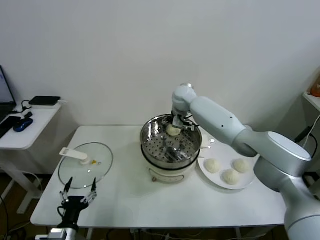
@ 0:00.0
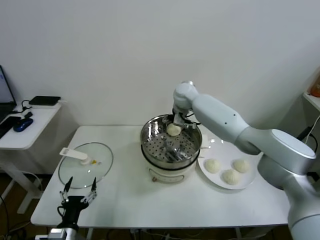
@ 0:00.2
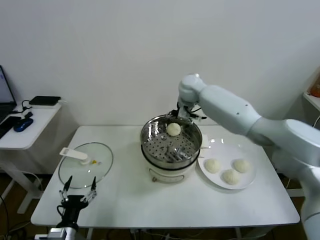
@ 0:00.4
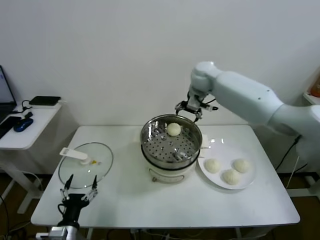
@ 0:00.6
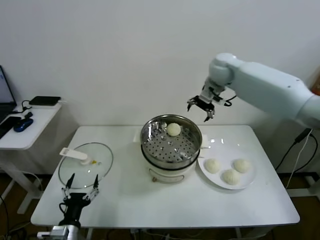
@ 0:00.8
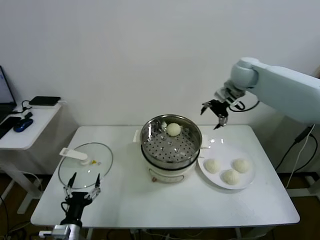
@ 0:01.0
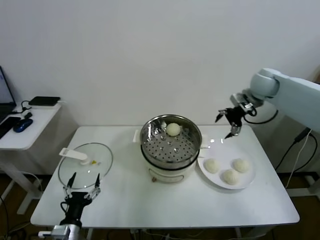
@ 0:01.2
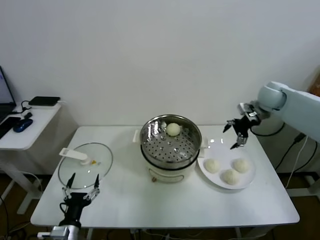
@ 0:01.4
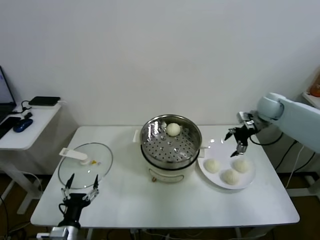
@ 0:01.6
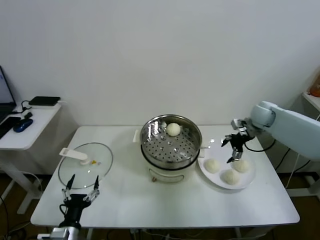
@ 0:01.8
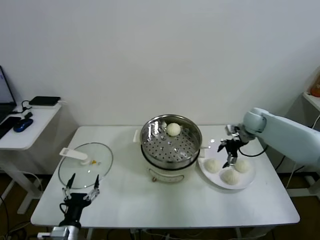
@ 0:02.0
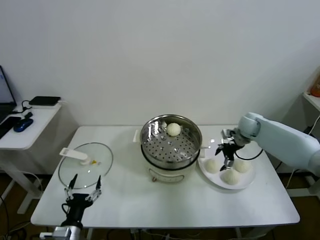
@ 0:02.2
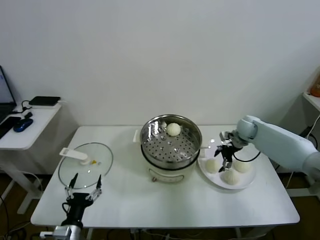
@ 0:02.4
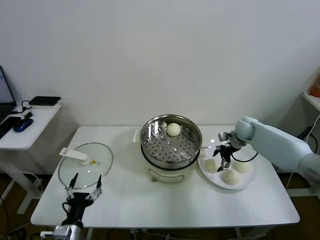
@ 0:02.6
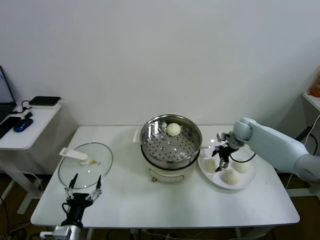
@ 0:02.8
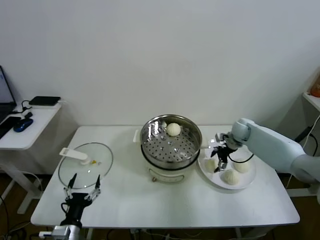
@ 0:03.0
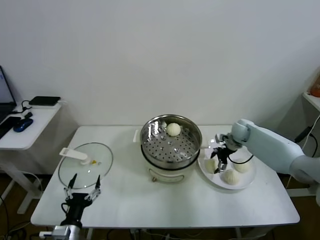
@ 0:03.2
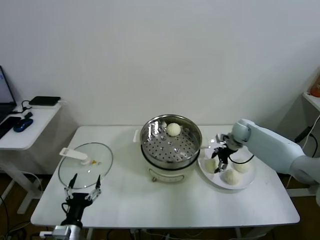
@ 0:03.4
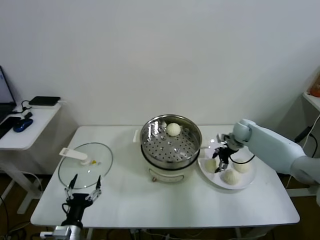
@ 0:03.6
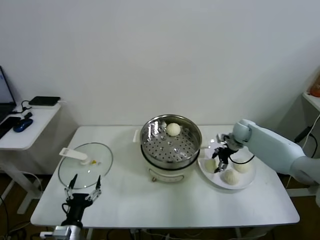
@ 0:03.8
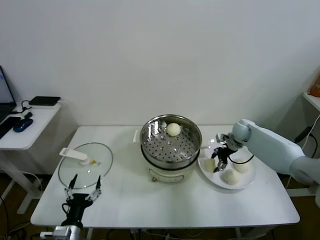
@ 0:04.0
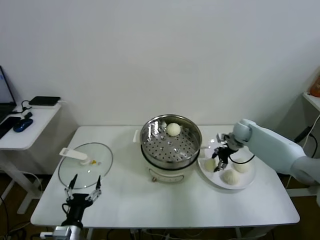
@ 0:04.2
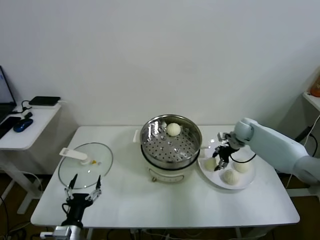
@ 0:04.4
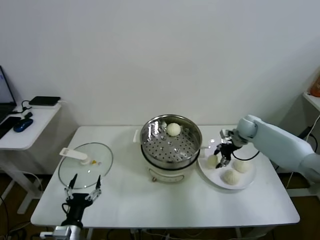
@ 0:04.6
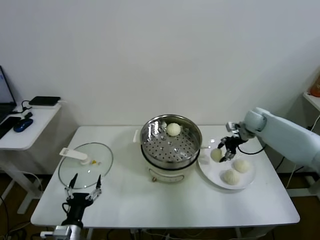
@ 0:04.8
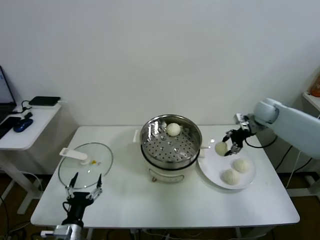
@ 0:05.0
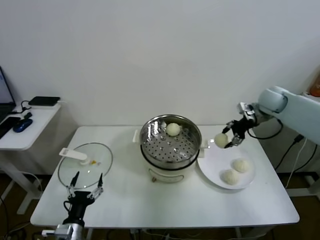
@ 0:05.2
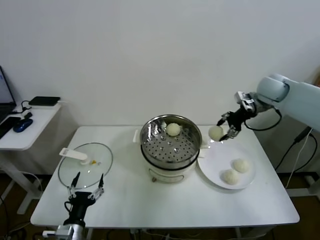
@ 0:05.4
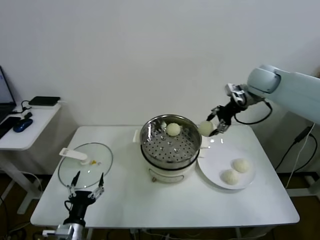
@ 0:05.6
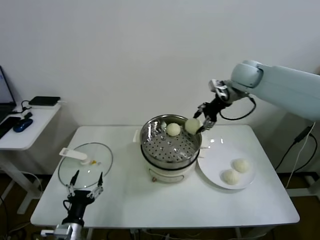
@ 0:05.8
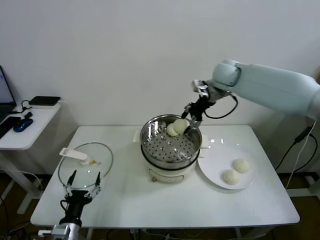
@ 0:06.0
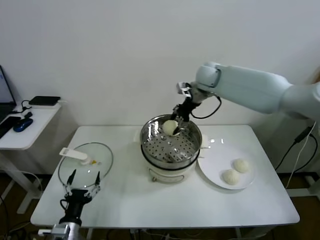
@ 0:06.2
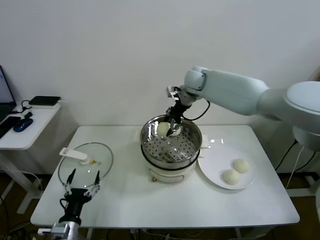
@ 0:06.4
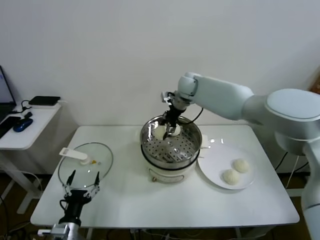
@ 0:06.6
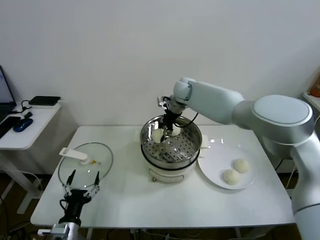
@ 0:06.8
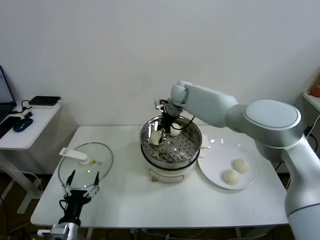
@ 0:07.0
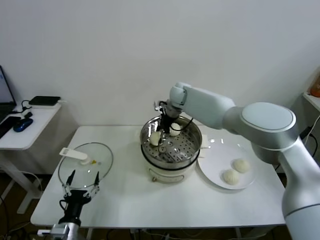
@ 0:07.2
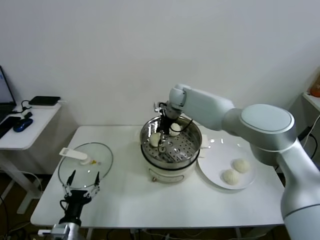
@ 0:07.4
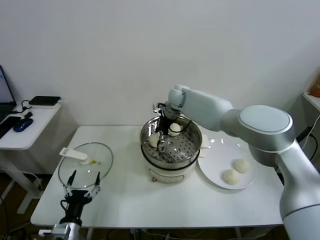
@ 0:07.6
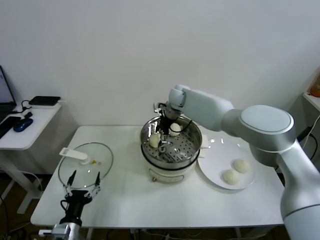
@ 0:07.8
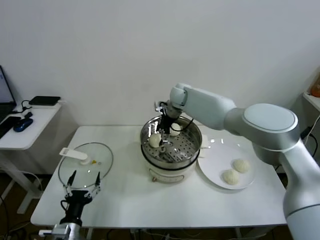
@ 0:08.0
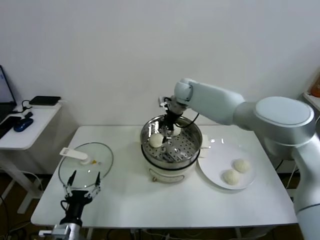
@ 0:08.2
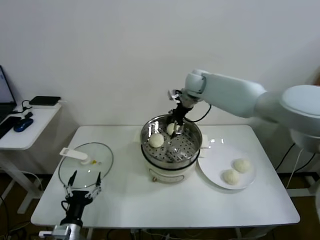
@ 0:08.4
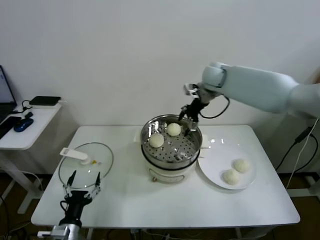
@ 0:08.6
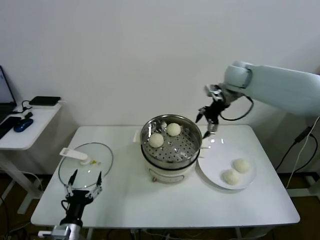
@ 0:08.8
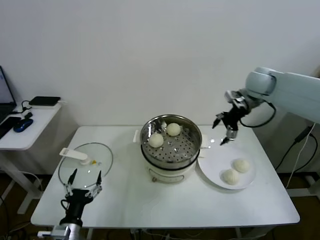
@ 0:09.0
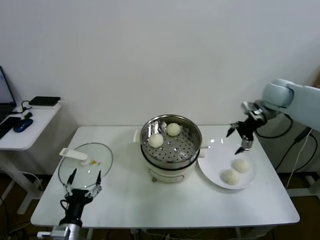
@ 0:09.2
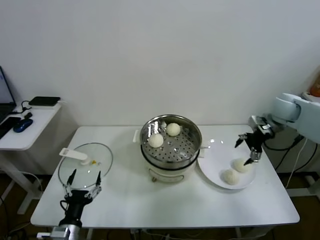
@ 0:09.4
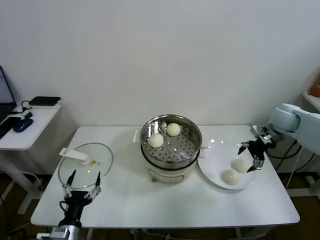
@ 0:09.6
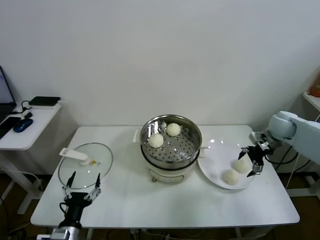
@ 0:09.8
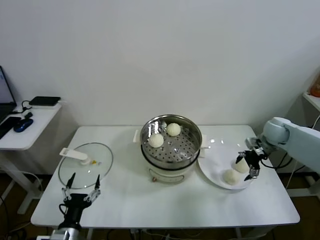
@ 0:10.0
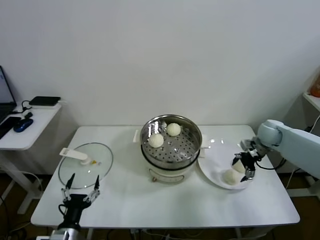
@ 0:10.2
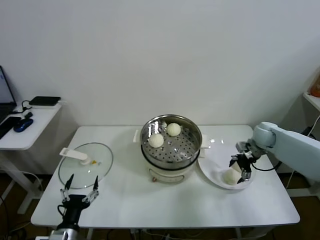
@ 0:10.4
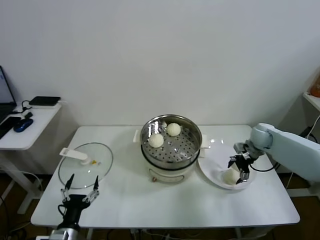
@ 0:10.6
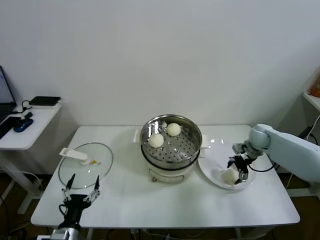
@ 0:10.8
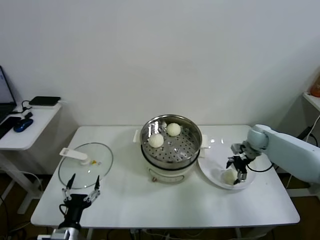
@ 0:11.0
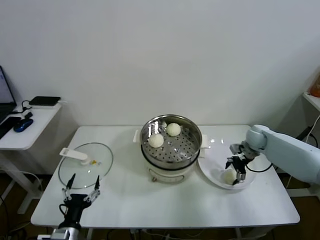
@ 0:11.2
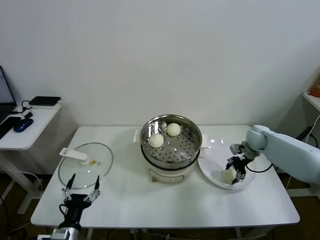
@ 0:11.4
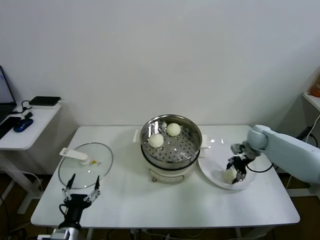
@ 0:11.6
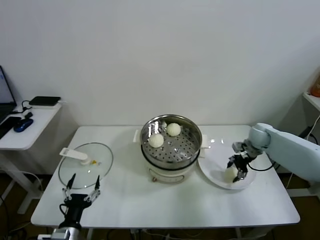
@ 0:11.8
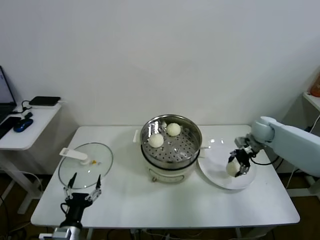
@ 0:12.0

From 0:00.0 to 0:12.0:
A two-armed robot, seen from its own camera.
Task of the whole recording: take steamed baozi put them in steamer.
Step, from 0:00.2 to 0:03.4: Grasp the baozi in the plate with right gripper.
Step, from 0:03.8 to 0:07.8: Place the baozi on the steamer with right gripper.
Step, from 0:08.0 to 0:11.6: Grasp the baozi in the plate with right gripper.
From 0:00.0 to 0:01.6: The right gripper travels to the right by approximately 30 cm.
From 0:01.6 to 0:03.0: The right gripper moves downward, approximately 15 cm.
From 0:03.0 to 0:04.4: The right gripper closes.
From 0:04.4 to 0:06.0: The right gripper shifts roughly 30 cm upward and to the left.
From 0:06.0 to 0:07.6: The right gripper heads to the left and downward, covering approximately 20 cm.
From 0:07.6 to 0:09.0: The right gripper is displaced to the right by some 25 cm, and opens its fingers.
From 0:09.0 to 0:10.4: The right gripper moves downward, about 20 cm.
From 0:10.4 to 0:12.0: The right gripper closes up.

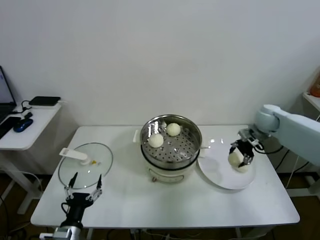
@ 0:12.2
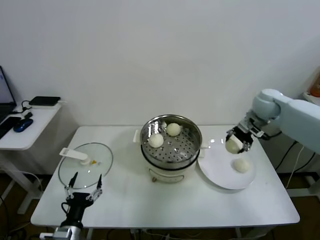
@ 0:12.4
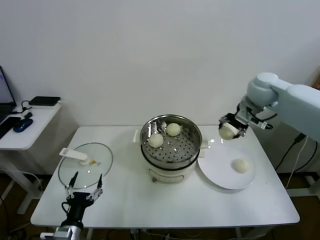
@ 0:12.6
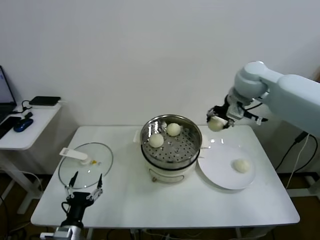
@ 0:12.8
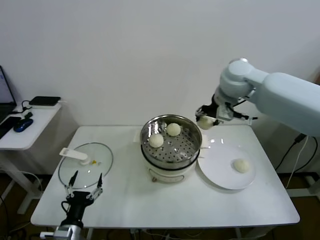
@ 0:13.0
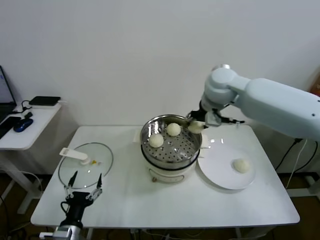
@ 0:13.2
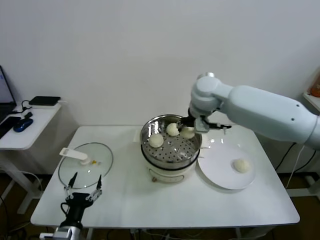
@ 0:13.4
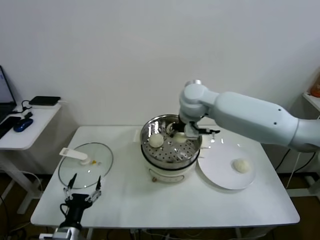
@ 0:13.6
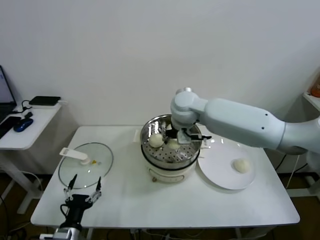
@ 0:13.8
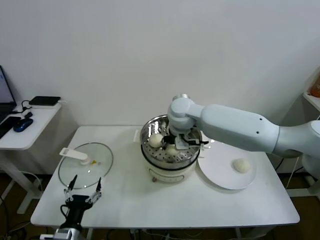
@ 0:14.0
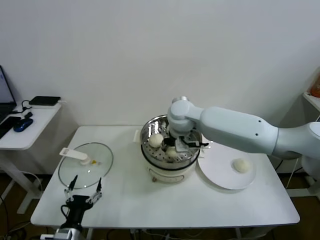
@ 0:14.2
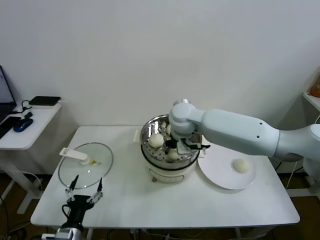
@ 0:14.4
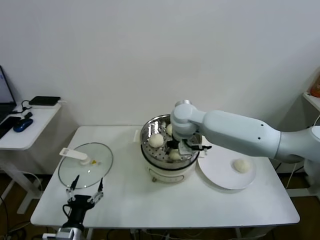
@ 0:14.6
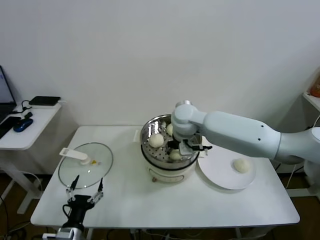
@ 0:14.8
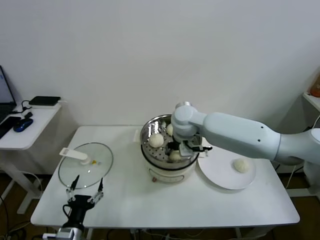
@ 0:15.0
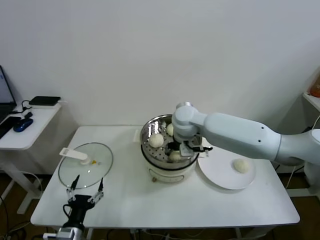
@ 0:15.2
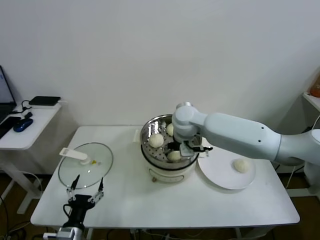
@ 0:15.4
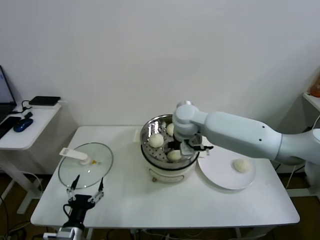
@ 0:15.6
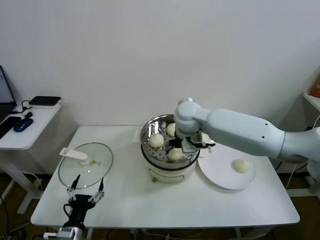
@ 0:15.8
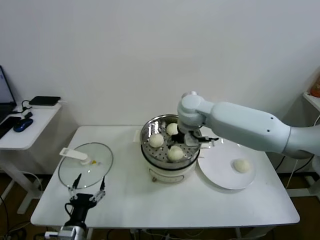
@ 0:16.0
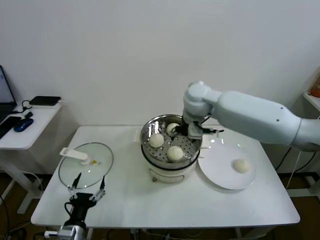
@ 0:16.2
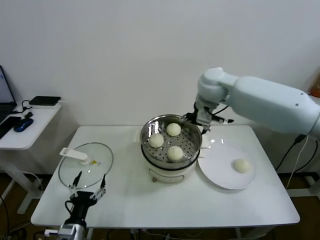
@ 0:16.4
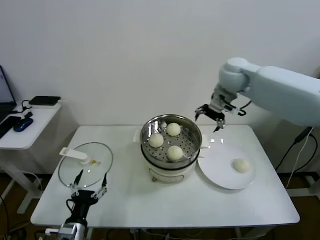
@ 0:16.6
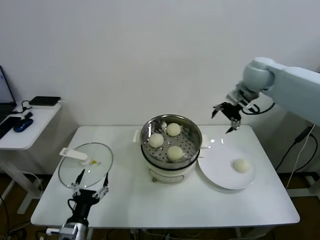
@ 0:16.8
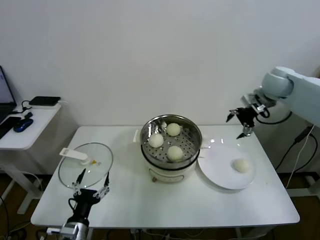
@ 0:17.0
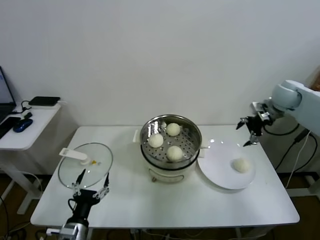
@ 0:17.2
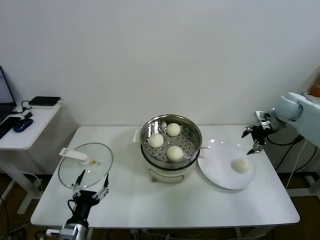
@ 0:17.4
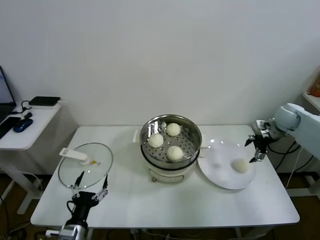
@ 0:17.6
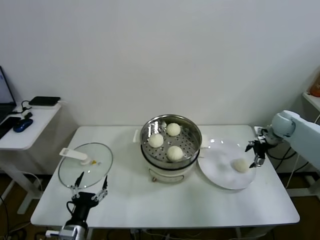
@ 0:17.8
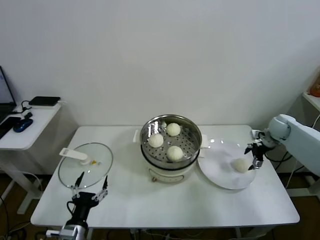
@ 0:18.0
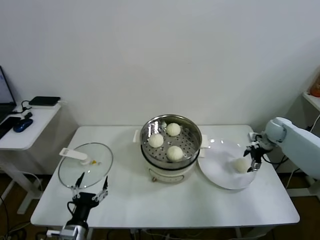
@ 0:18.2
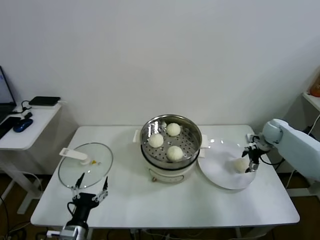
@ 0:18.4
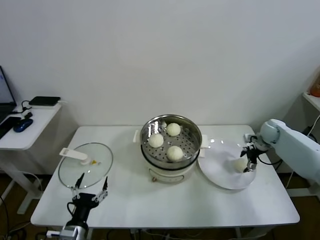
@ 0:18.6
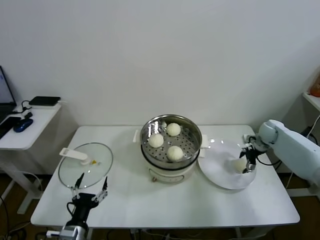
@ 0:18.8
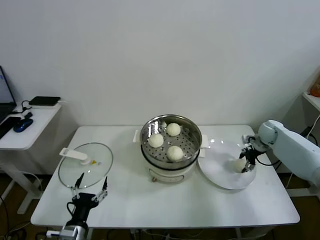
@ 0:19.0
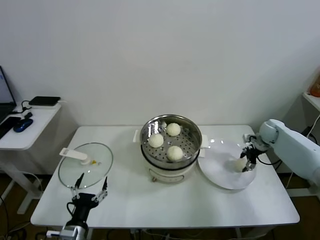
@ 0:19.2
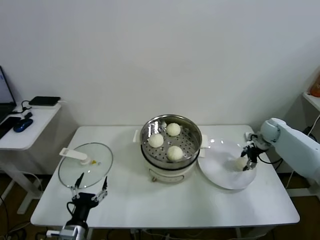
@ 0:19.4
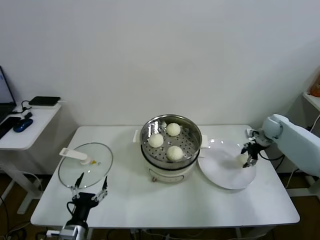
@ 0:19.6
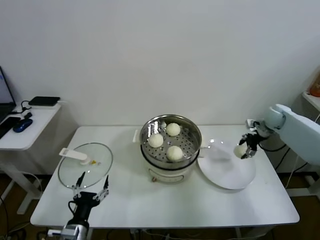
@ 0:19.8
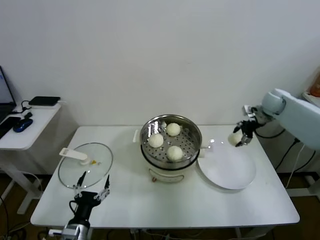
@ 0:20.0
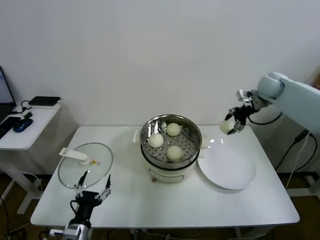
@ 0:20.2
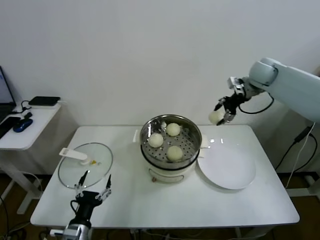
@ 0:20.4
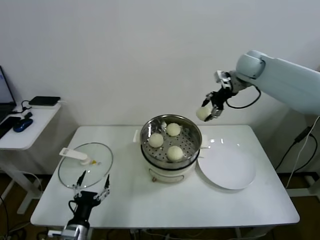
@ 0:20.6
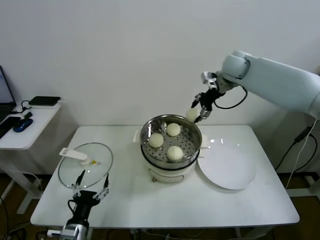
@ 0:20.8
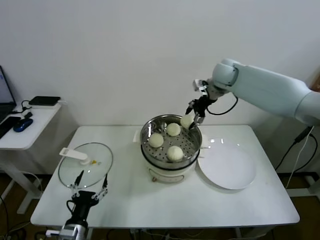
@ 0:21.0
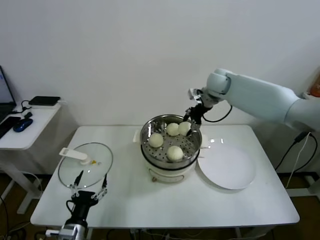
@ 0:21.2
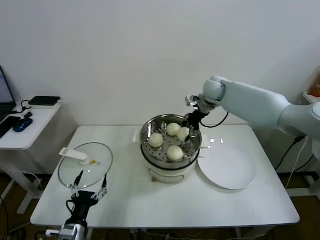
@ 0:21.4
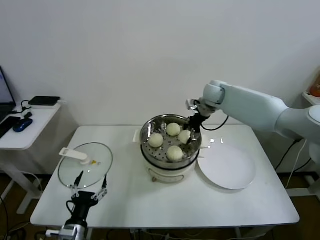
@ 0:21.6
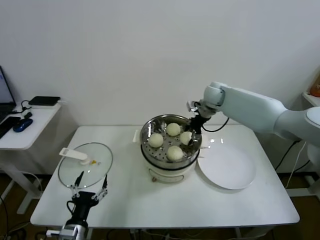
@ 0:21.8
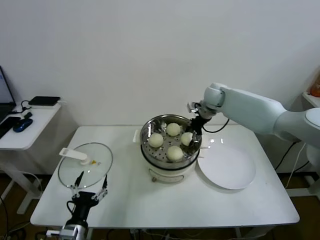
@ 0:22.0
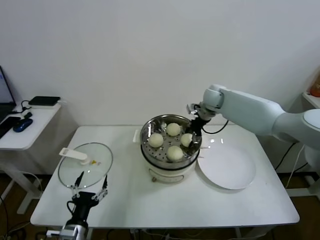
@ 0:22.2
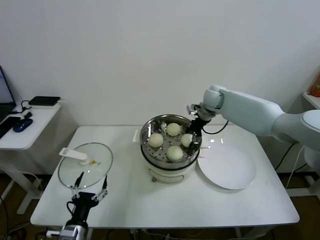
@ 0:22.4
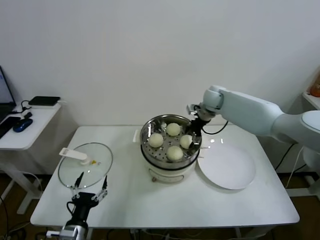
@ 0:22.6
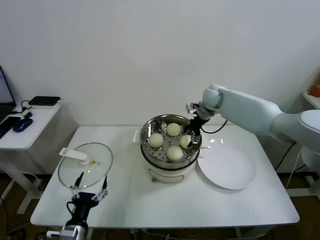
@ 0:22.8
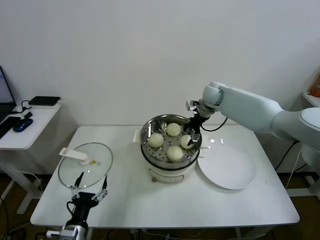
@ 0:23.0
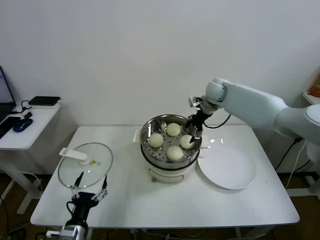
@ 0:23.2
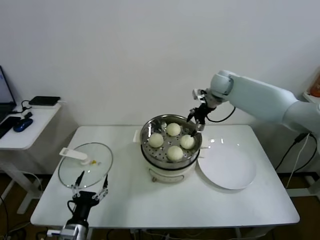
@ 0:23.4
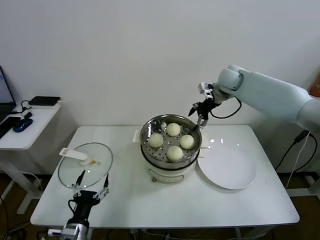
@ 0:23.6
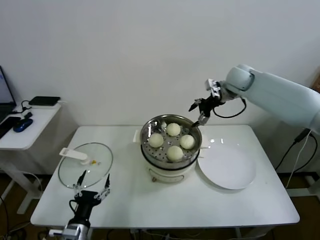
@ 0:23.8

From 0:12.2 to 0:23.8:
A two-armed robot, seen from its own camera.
Task of the whole recording: take steamed baozi put them in steamer.
Step, from 0:12.2 to 0:15.4: Place the baozi on the steamer with right gripper.
Step, from 0:15.6 to 0:19.2: Grasp the baozi in the plate with right gripper.
Step, from 0:19.4 to 0:22.6: Place the baozi on the steamer with right gripper.
From 0:12.2 to 0:13.6: The right gripper travels to the left by approximately 30 cm.
From 0:13.6 to 0:15.0: The right gripper travels downward by about 5 cm.
From 0:15.0 to 0:16.6: The right gripper goes approximately 20 cm to the right, upward and forward, and opens up.
From 0:16.6 to 0:18.0: The right gripper goes some 35 cm to the right and downward.
From 0:18.0 to 0:19.4: The right gripper closes.
From 0:19.4 to 0:21.0: The right gripper heads upward and to the left, covering about 35 cm.
From 0:21.0 to 0:22.4: The right gripper moves downward, about 10 cm.
From 0:22.4 to 0:23.8: The right gripper is displaced upward and to the right by some 10 cm, and opens.
